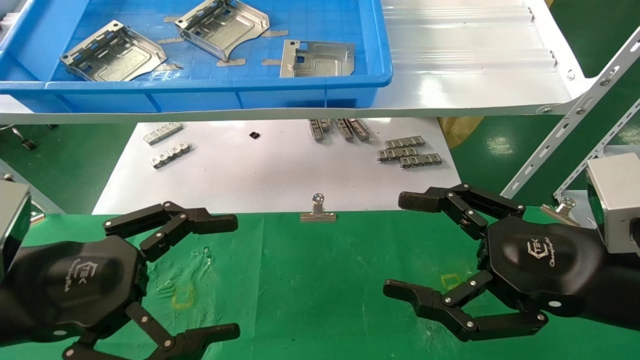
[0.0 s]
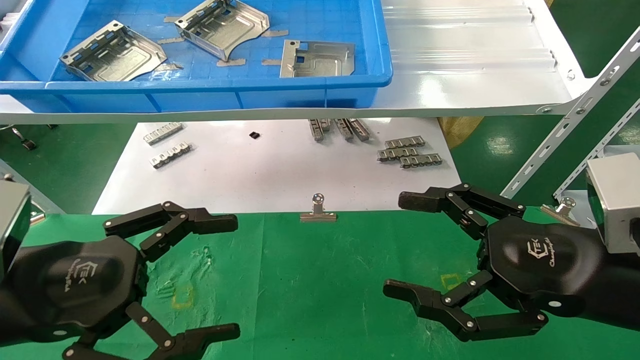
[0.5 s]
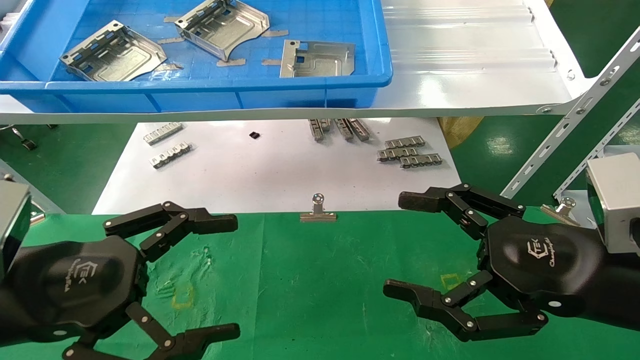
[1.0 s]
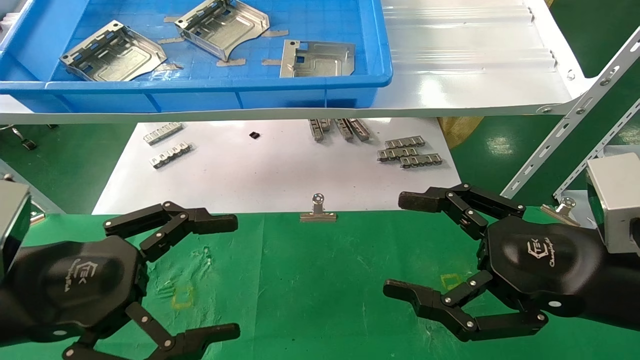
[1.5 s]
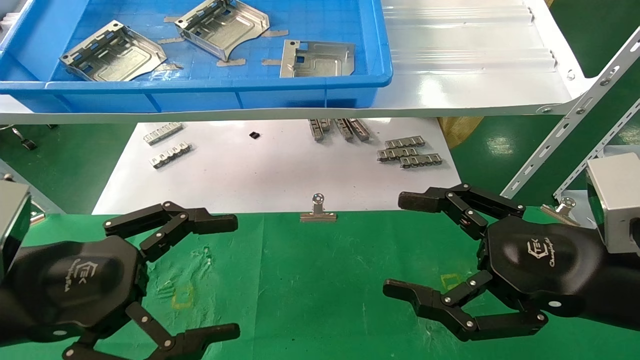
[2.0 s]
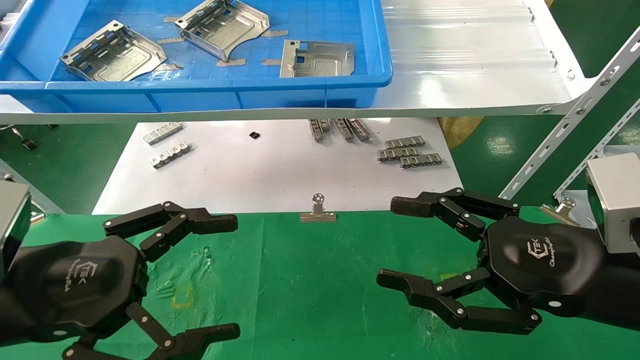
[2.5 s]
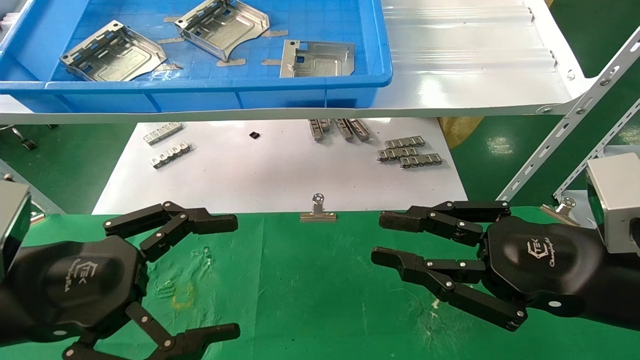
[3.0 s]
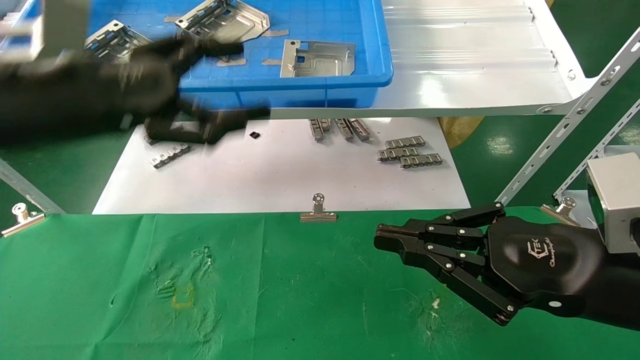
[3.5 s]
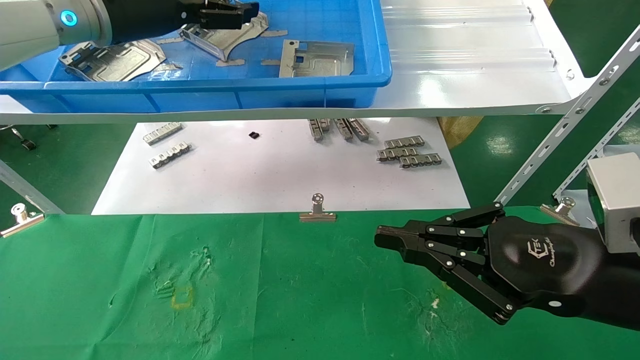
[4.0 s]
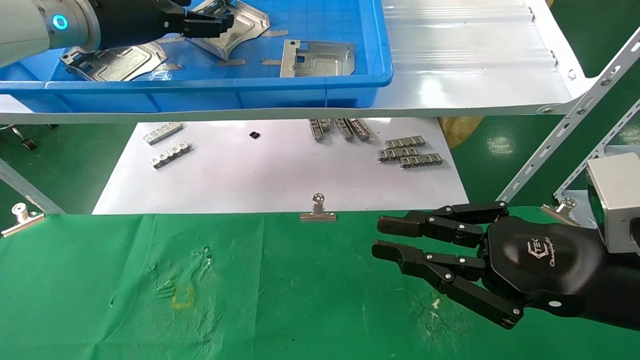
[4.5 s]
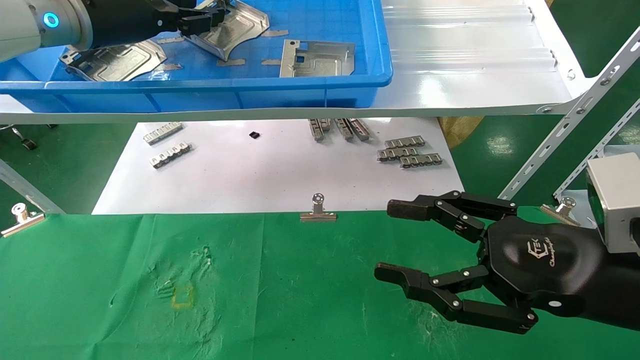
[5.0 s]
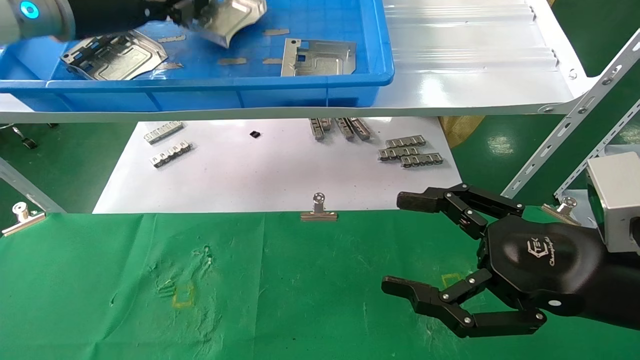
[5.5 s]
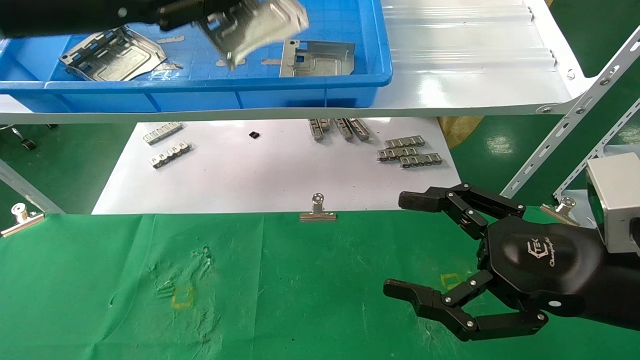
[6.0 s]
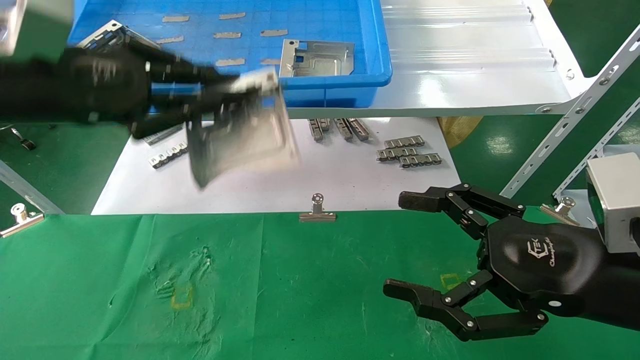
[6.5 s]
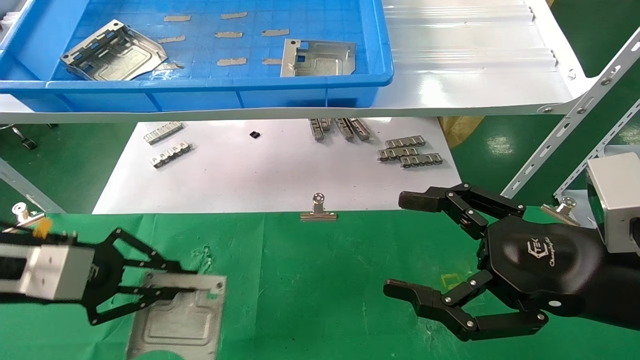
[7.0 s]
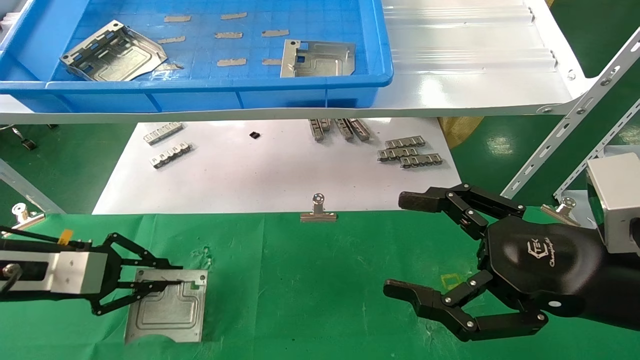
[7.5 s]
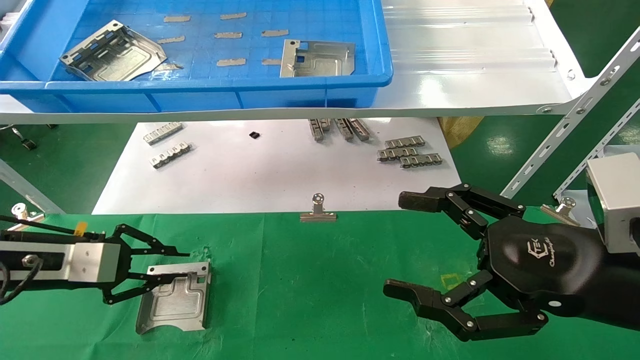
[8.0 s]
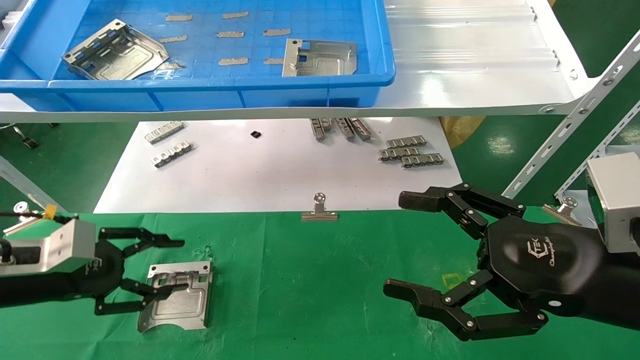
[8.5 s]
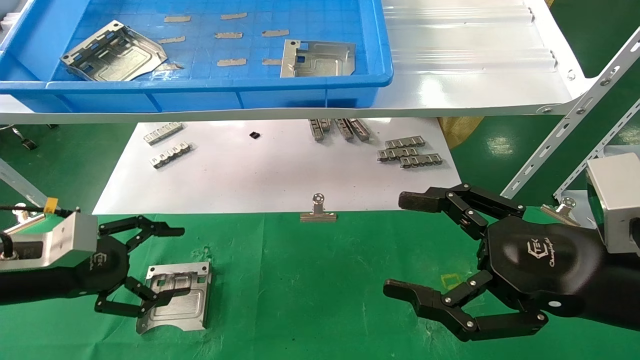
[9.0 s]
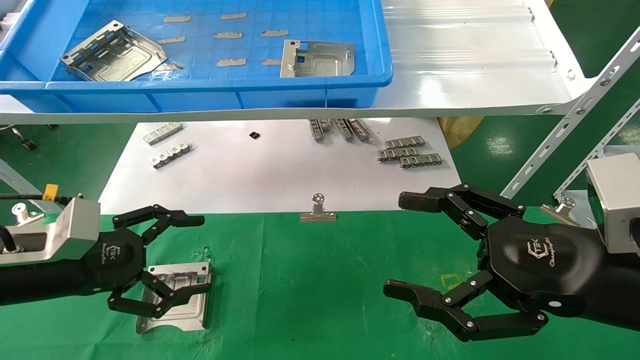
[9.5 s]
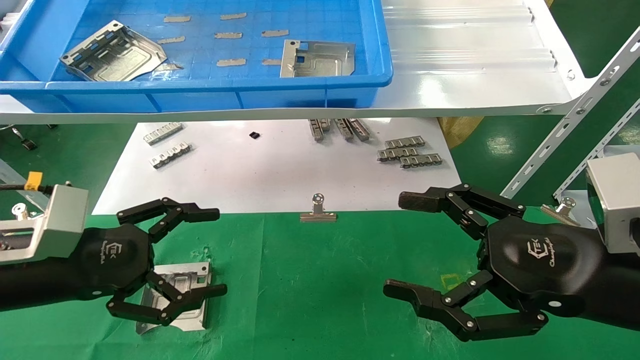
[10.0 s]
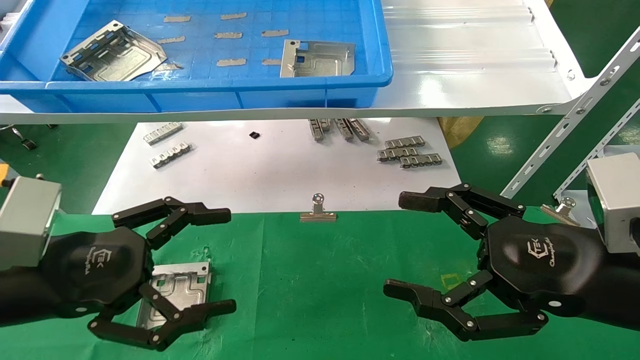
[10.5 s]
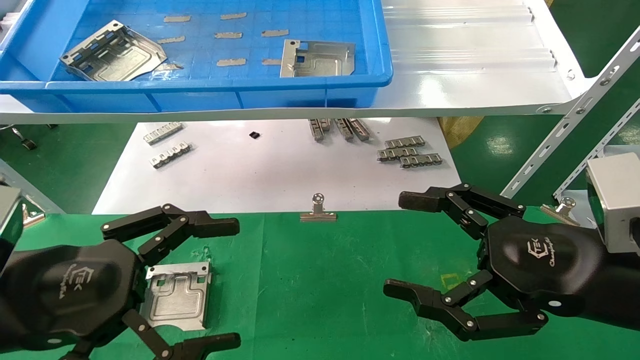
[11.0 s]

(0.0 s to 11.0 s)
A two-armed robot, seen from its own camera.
Task of the whole recording: use the mechanical arm to pick up the parts and place them on the table.
Step, 3.5 s - 5.5 s: Pick up the hard drive bracket from the feeding area.
Step, 6.0 s - 8.0 s: Place the hard drive bracket into the box.
0.0 s - 2.0 s: Neither gripper changes place.
2.0 s - 3.5 s: The left gripper goes approximately 20 cm upward and forward. The right gripper closes up.
3.5 s - 5.5 s: The right gripper opens its fingers; the left gripper goes some 15 cm forward and upward, and closes up.
5.5 s - 7.5 s: The left gripper shifts approximately 30 cm downward.
7.5 s - 9.0 s: The left gripper opens its fingers.
9.0 s - 11.0 s: The left gripper is displaced backward, to the right and upward by approximately 15 cm.

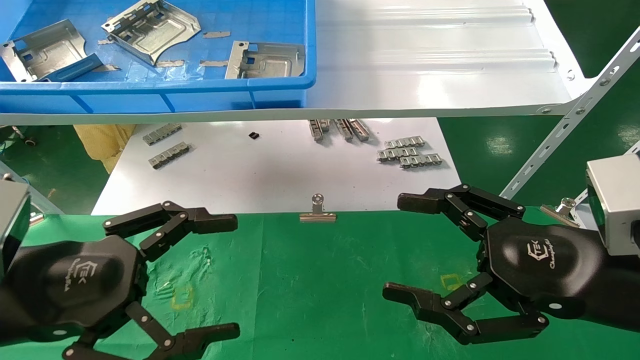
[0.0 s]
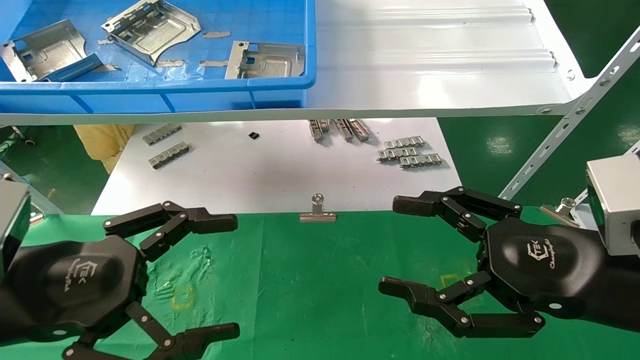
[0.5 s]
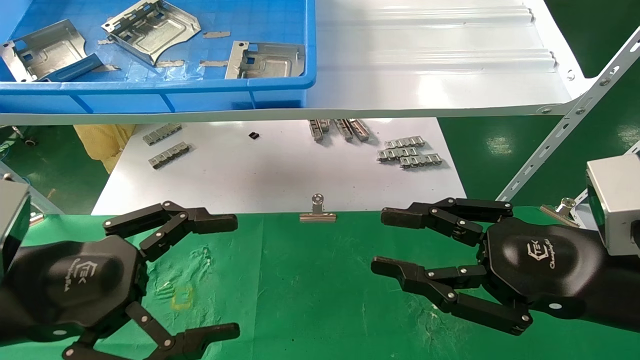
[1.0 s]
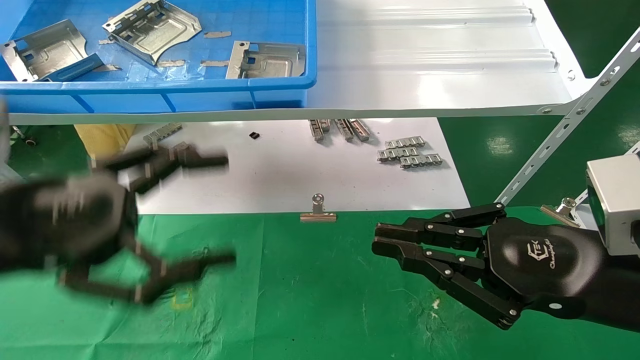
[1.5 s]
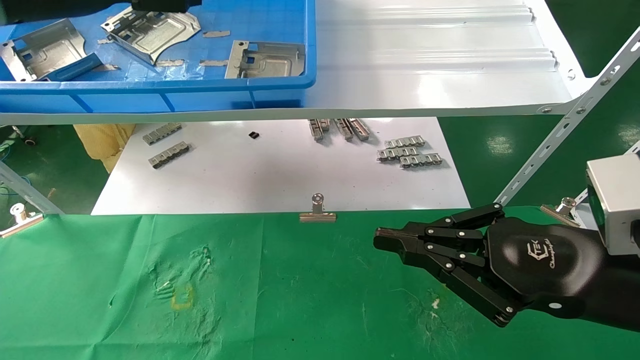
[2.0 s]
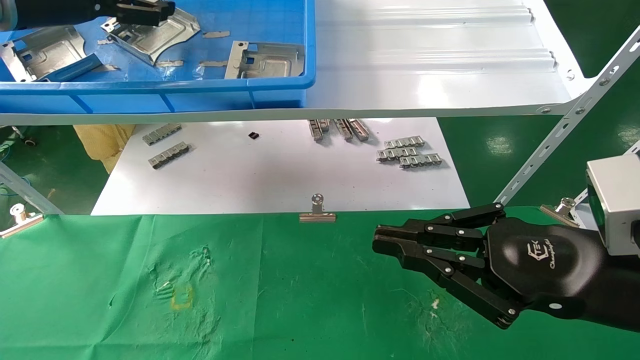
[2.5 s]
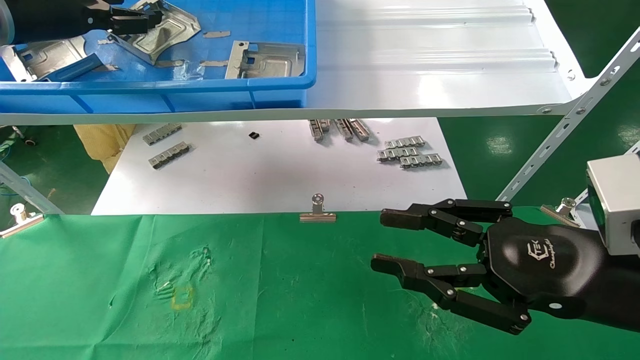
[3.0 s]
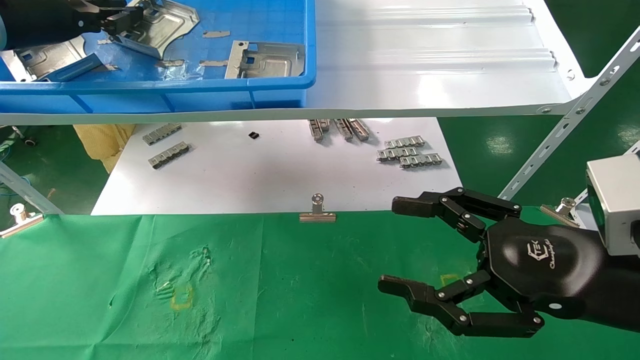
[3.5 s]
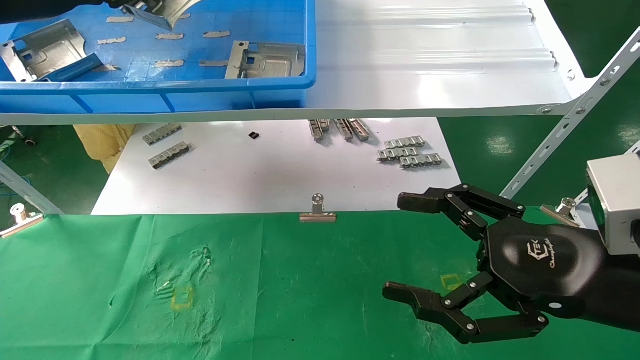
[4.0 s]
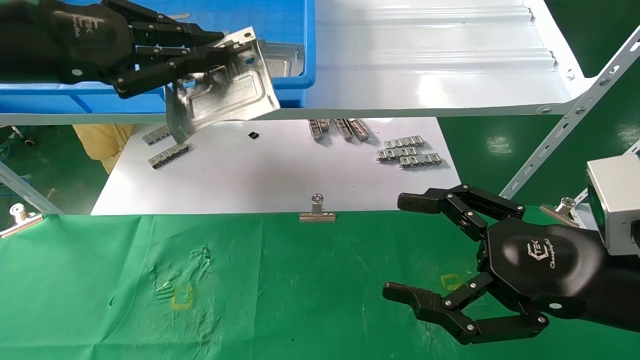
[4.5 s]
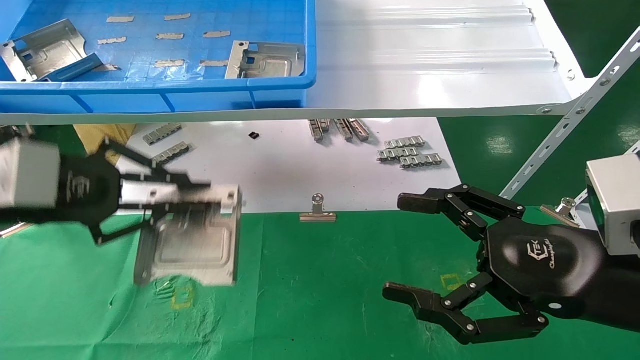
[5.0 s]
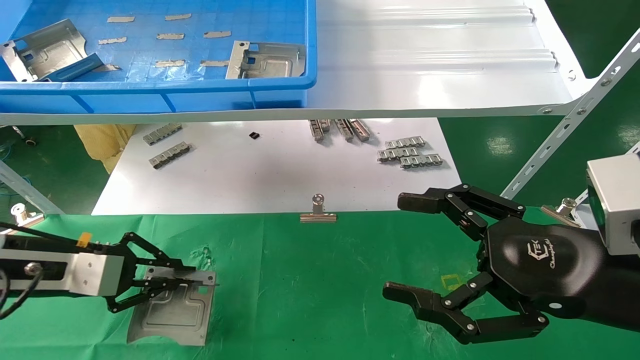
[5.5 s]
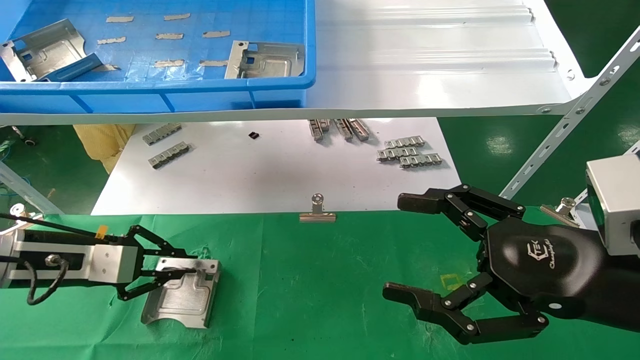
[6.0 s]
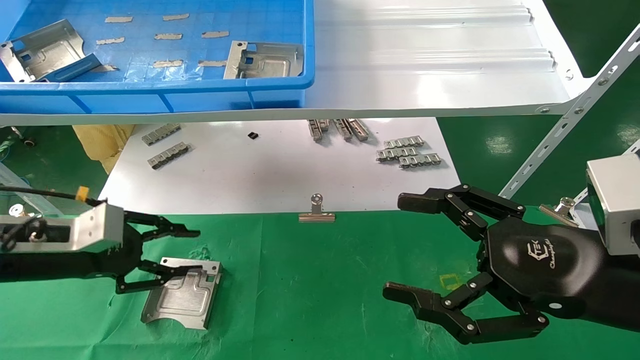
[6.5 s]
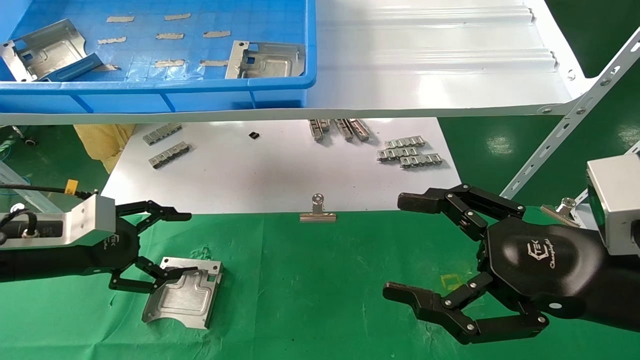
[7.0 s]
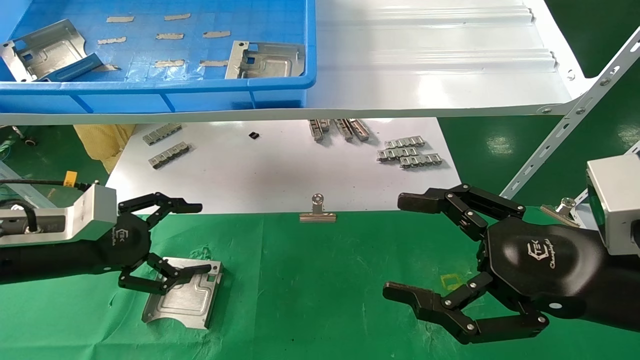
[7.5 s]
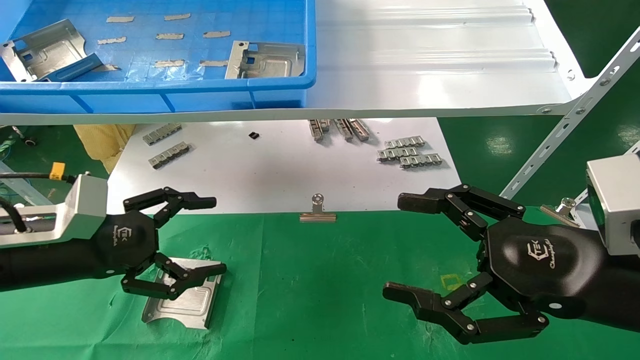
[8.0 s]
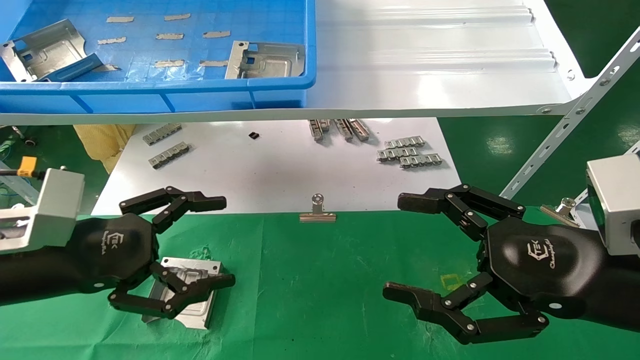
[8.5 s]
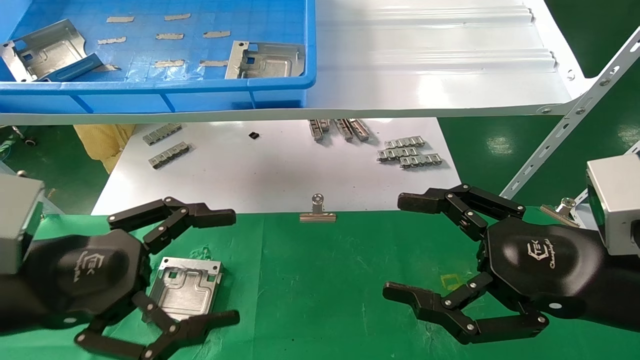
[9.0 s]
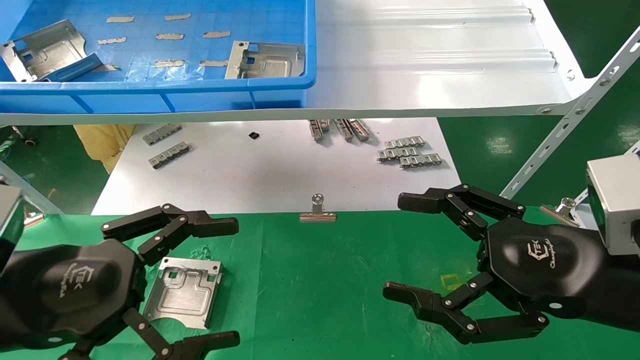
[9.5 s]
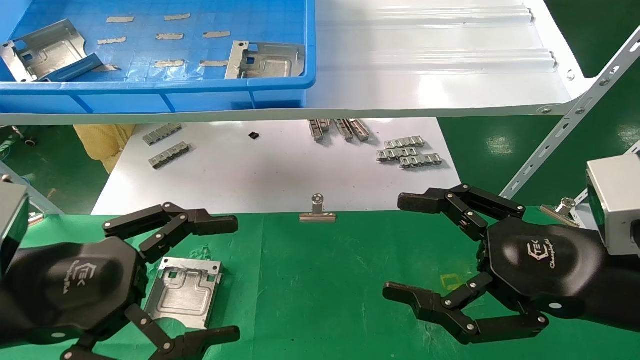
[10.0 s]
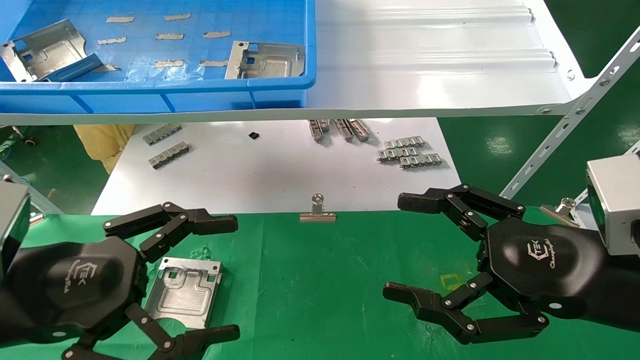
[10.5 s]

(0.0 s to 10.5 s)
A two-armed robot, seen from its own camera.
Task of the whole recording: use the mechanical arm to pick up the parts and place them on the table.
Step, 2.0 s - 4.0 s: Pick up the hard drive bracket from the feeding area.
Step, 4.5 s - 6.5 s: Place the hard drive bracket into the box.
0.0 s - 2.0 s: The right gripper closes up. Meanwhile the left gripper travels upward and forward by roughly 30 cm.
2.0 s - 4.0 s: The left gripper closes up. The right gripper opens its fingers.
4.0 s - 6.5 s: The left gripper moves downward, roughly 30 cm.
6.5 s - 8.5 s: The left gripper travels backward and to the right by some 10 cm, and opens up.
8.5 s - 10.5 s: The left gripper travels backward by some 5 cm.
